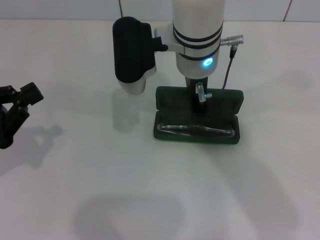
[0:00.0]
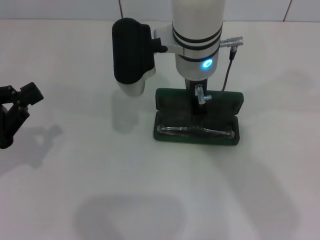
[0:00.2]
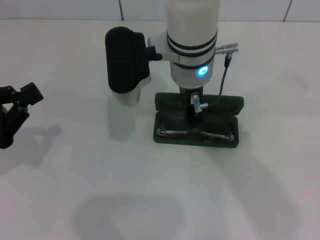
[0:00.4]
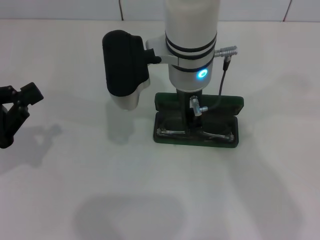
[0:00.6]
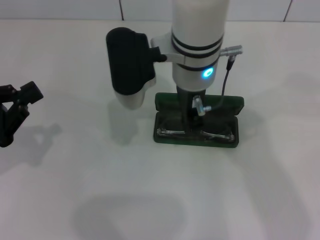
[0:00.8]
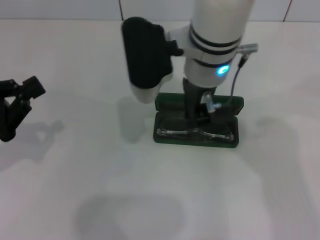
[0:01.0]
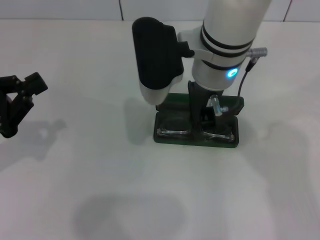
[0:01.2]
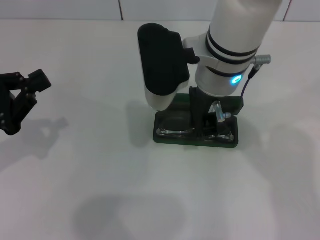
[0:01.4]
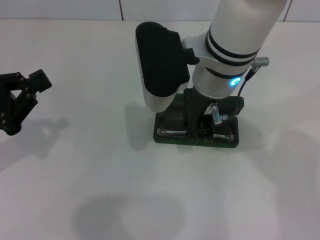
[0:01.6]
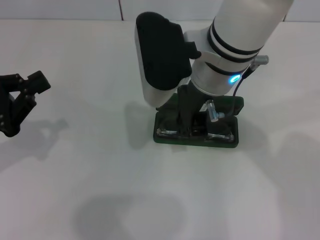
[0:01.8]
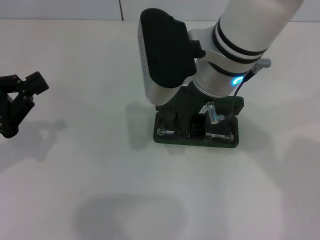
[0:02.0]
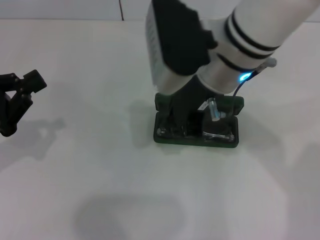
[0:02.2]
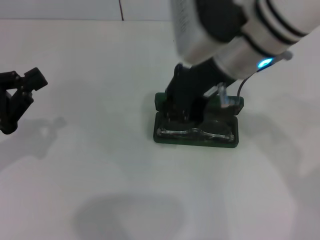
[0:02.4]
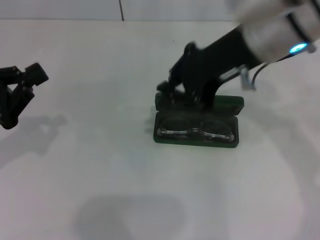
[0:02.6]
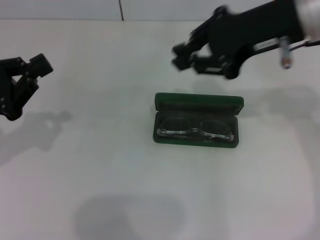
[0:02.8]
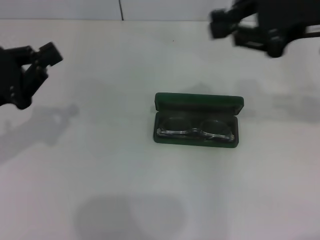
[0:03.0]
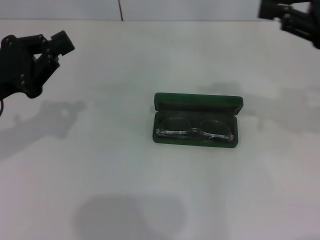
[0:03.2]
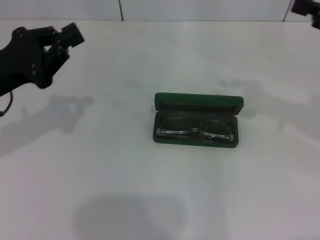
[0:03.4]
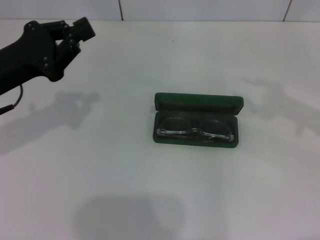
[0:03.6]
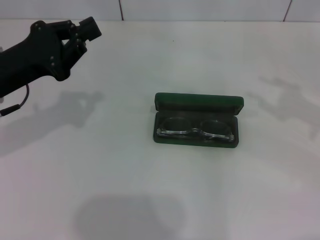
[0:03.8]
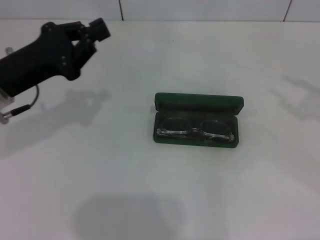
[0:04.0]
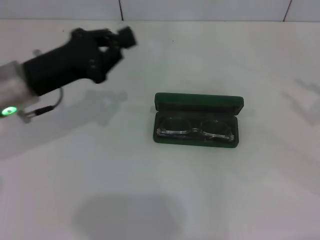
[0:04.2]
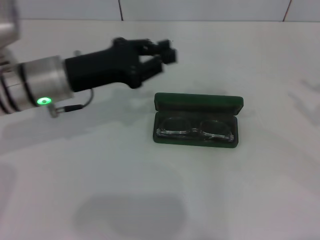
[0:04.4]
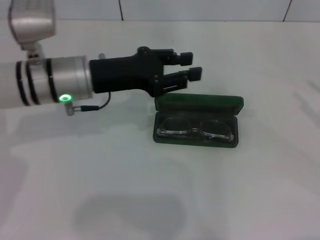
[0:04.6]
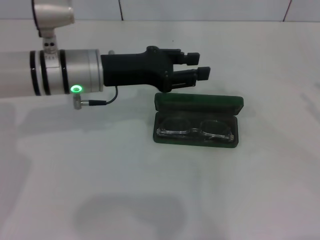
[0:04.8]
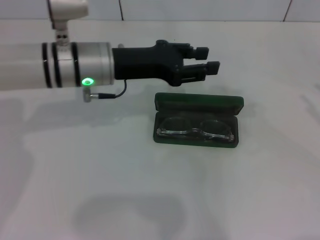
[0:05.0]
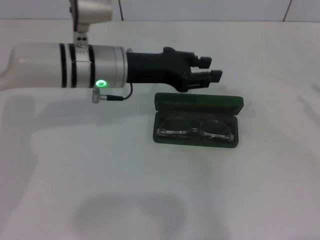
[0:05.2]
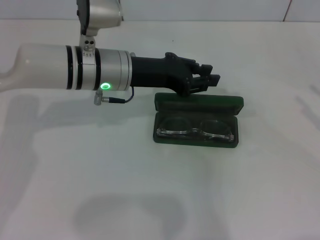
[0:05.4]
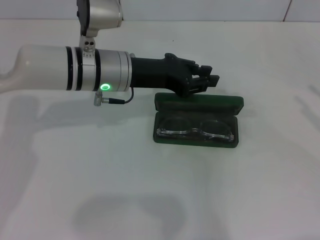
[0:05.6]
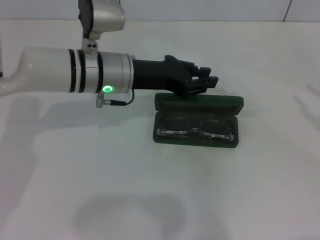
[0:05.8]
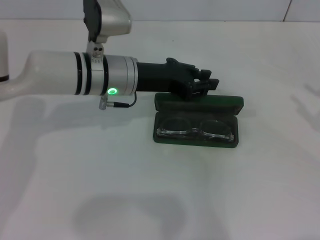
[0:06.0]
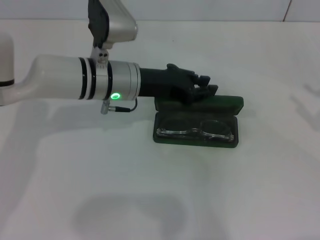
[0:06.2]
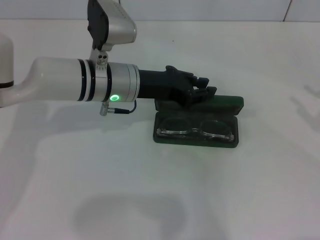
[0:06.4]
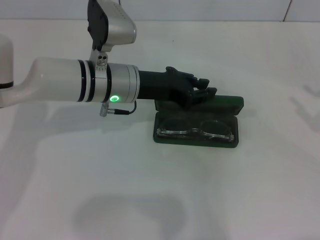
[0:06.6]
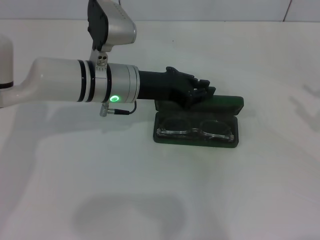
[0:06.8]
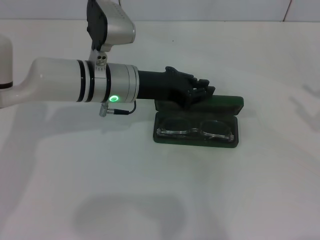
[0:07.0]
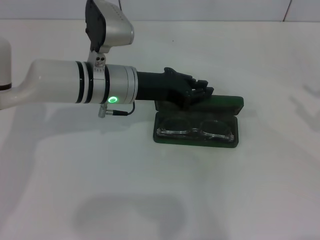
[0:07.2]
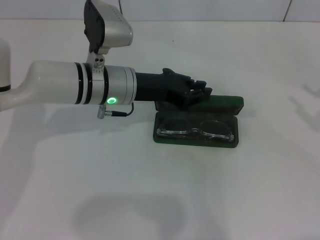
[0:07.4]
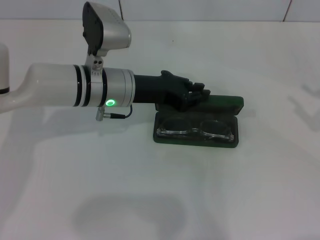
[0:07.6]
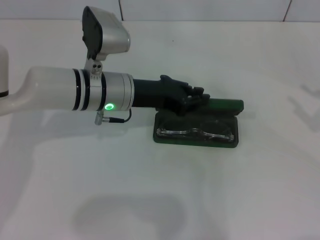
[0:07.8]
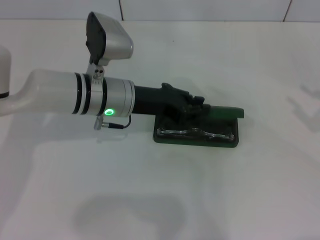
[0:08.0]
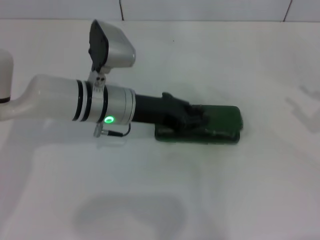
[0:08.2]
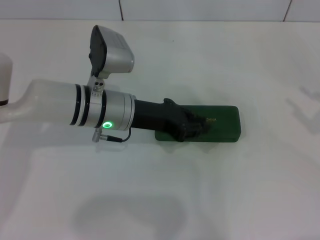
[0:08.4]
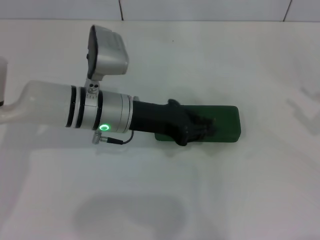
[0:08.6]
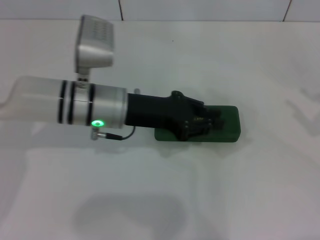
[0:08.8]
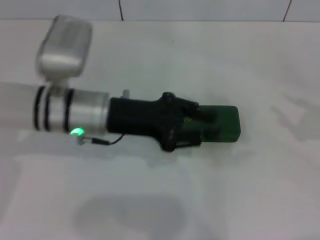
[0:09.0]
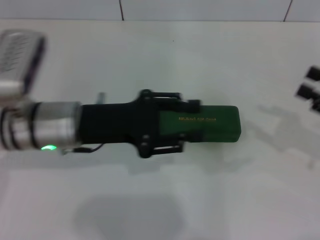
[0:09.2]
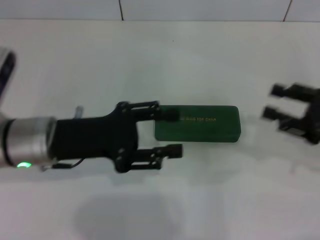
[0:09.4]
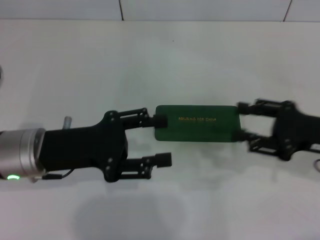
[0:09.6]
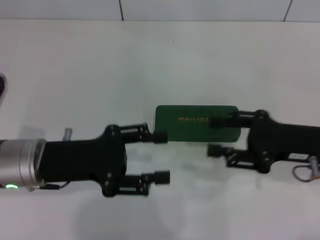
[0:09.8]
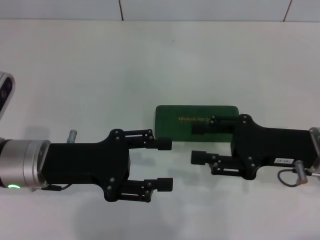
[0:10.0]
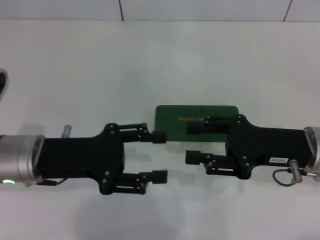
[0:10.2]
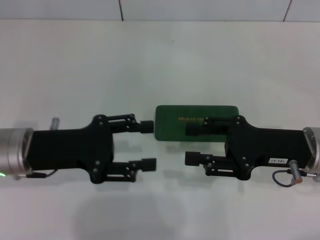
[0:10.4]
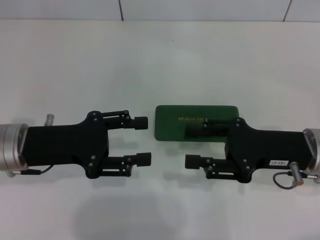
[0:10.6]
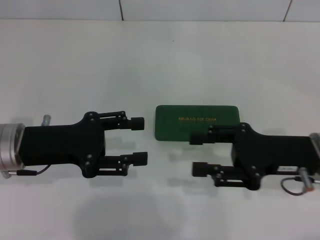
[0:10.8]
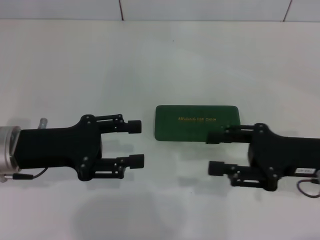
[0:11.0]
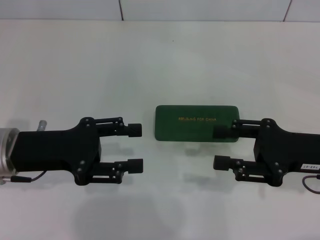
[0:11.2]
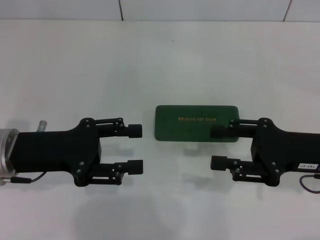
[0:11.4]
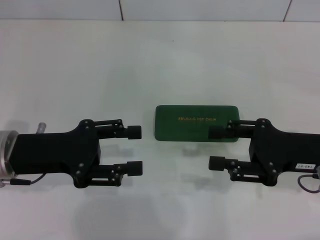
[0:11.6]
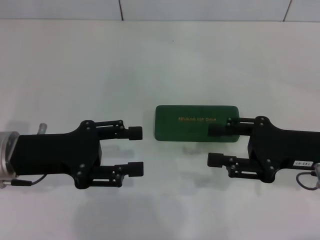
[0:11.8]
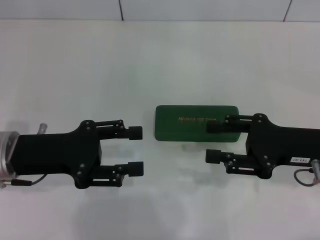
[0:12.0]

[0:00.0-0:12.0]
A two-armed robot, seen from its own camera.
Step, 0:00.0 to 0:08.2: Close the glasses case with your left hand.
0:00.0 to 0:01.6: The right gripper ends up some 5 cm from where it was.
0:01.6 to 0:03.0: The right gripper goes approximately 20 cm to the right.
0:03.0 to 0:04.4: The right gripper travels to the right, downward and backward by roughly 20 cm, and opens. Meanwhile the left gripper goes approximately 15 cm to the right and forward.
0:04.4 to 0:06.0: The left gripper travels to the right by some 10 cm.
0:06.0 to 0:07.6: The grippers move only a little.
0:07.6 to 0:09.0: The left gripper moves roughly 5 cm.
0:09.0 to 0:10.4: The right gripper heads to the left, covering some 15 cm. Meanwhile the left gripper heads to the left and backward, covering some 10 cm, and opens up.
0:10.4 to 0:12.0: The grippers move only a little.
